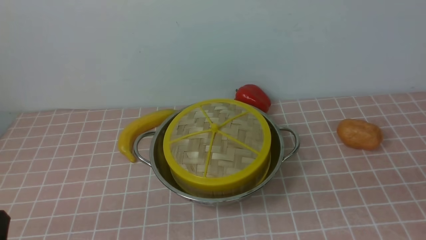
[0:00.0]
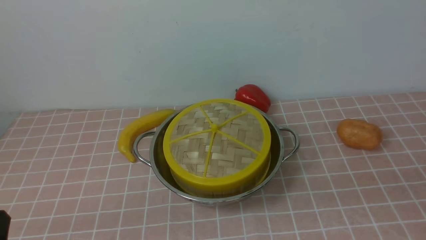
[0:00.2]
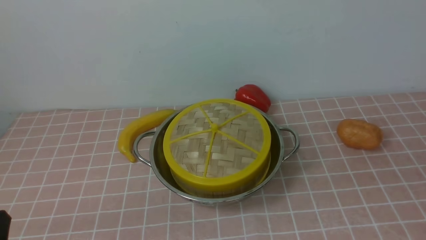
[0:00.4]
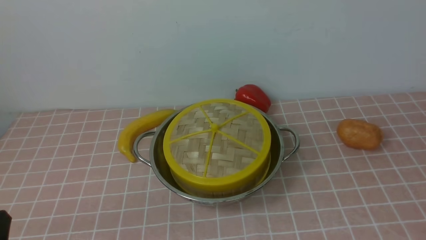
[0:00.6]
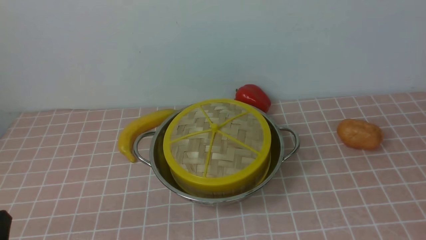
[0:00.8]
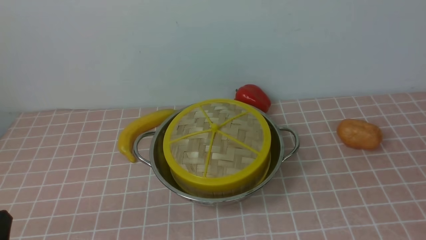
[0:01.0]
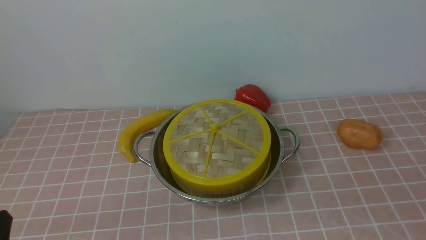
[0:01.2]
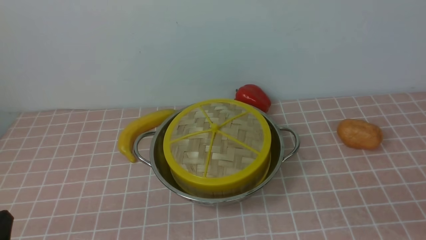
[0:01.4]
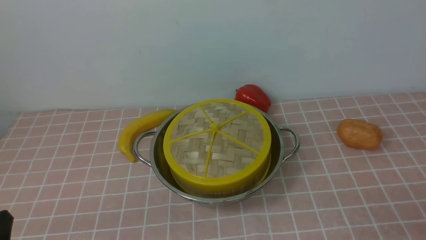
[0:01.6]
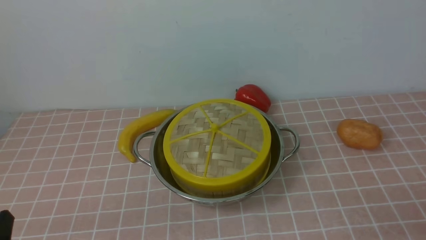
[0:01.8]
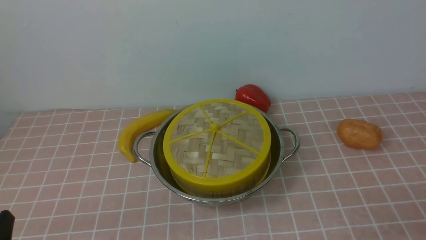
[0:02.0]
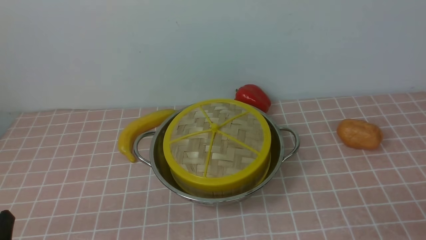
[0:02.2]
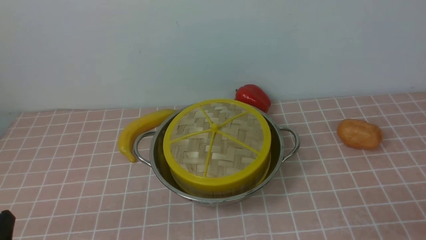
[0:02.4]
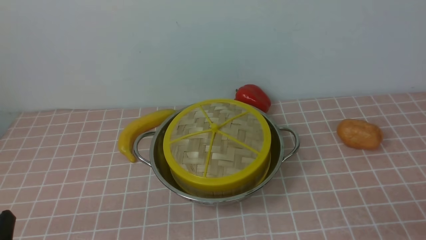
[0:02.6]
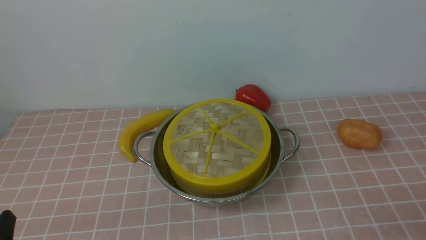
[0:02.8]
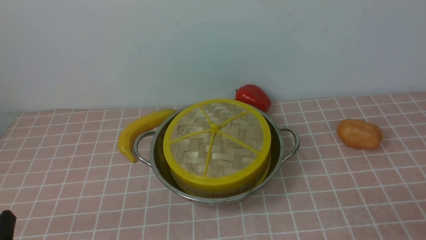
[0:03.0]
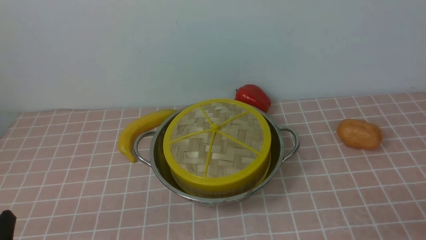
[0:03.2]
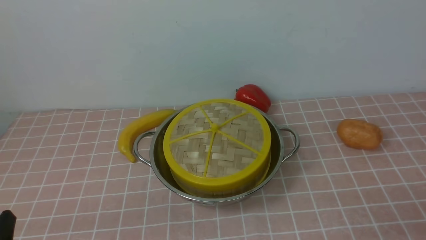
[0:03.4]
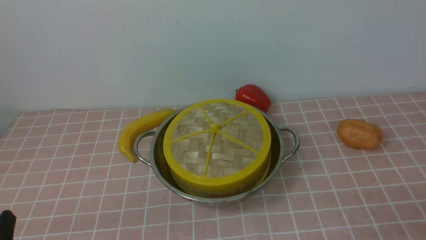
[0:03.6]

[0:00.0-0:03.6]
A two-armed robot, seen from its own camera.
Task of the whole recording: place the steamer in the pot on the pink tablecloth, and put the lid on the steamer.
0:01.8 to 0:03.6: Neither gripper changes place.
